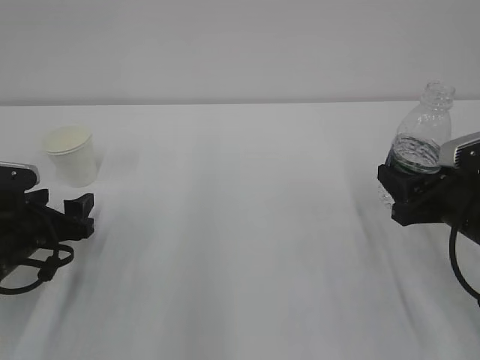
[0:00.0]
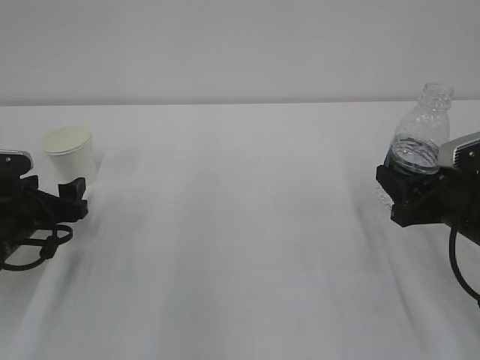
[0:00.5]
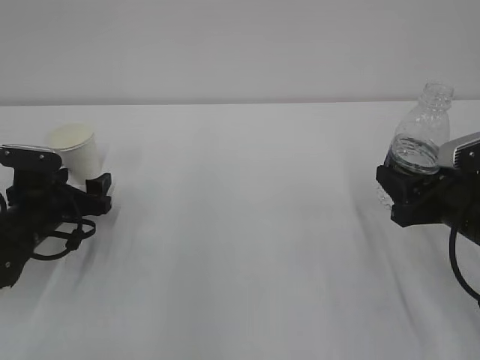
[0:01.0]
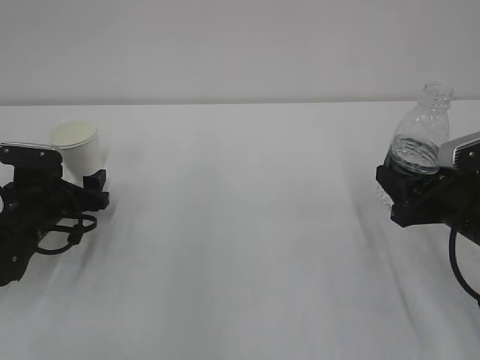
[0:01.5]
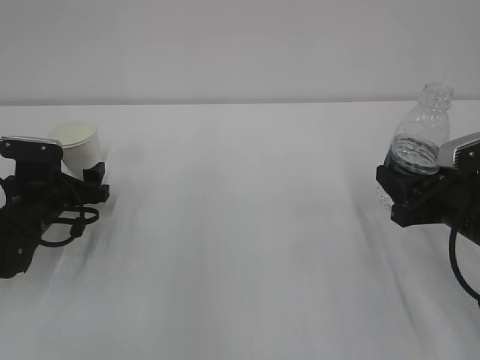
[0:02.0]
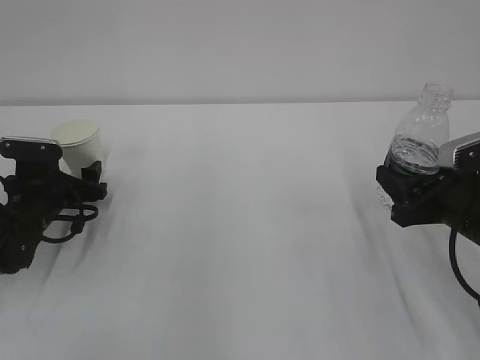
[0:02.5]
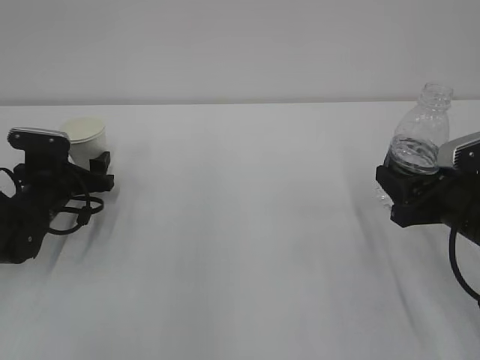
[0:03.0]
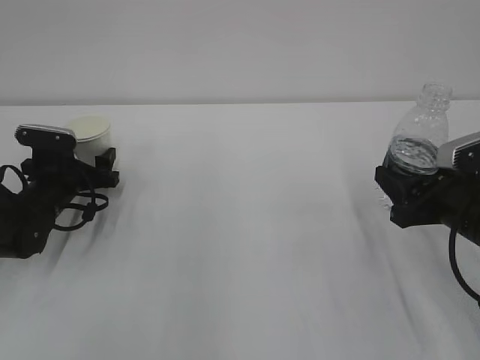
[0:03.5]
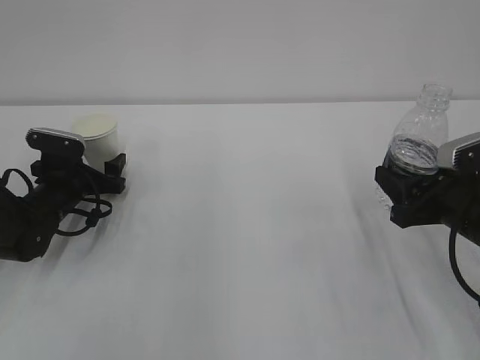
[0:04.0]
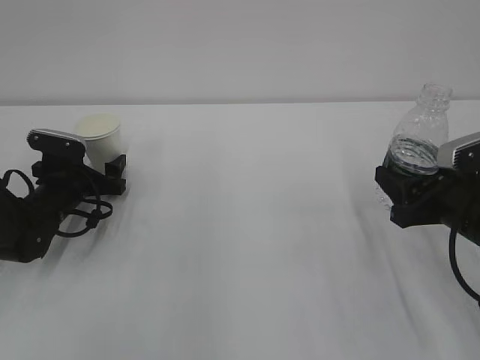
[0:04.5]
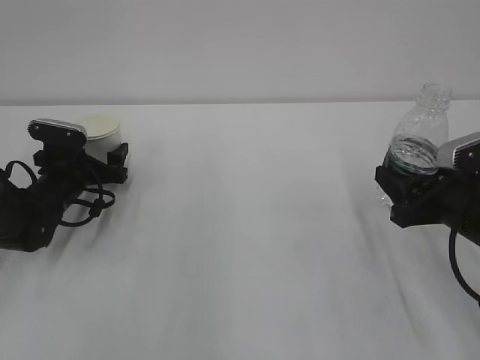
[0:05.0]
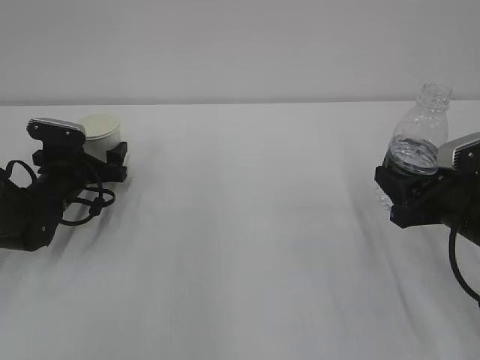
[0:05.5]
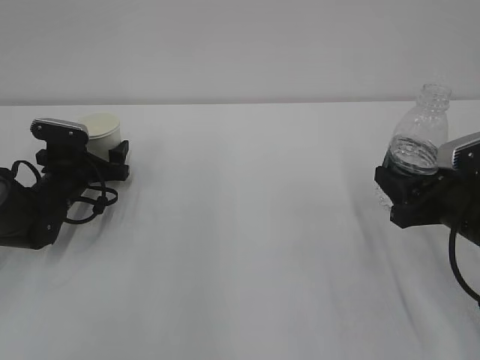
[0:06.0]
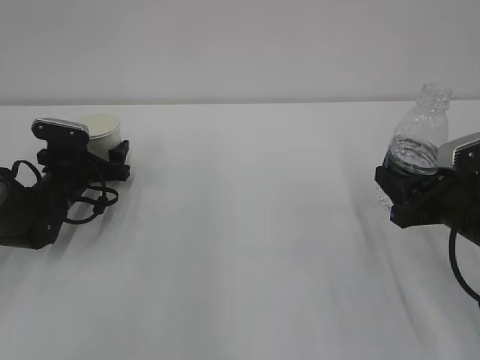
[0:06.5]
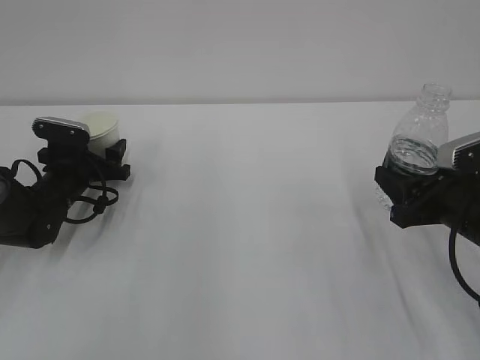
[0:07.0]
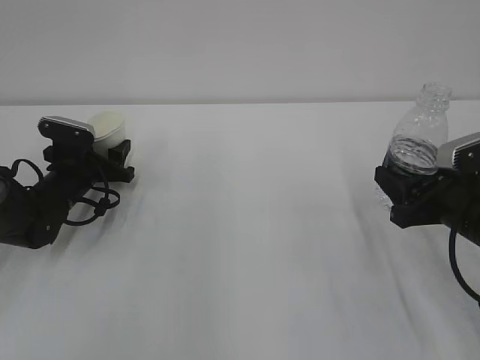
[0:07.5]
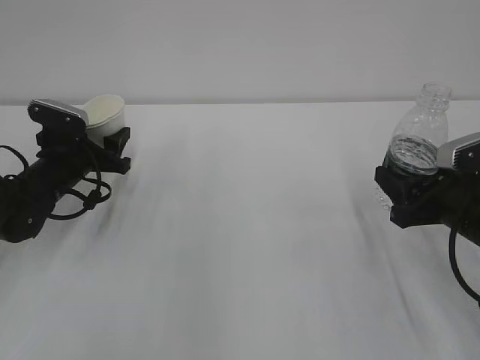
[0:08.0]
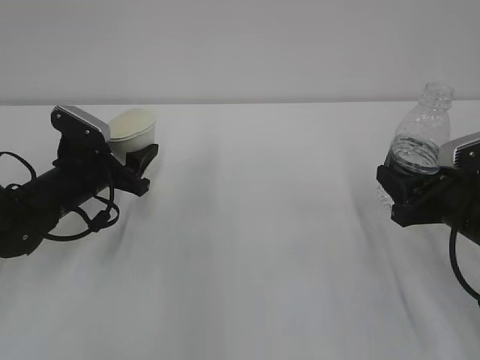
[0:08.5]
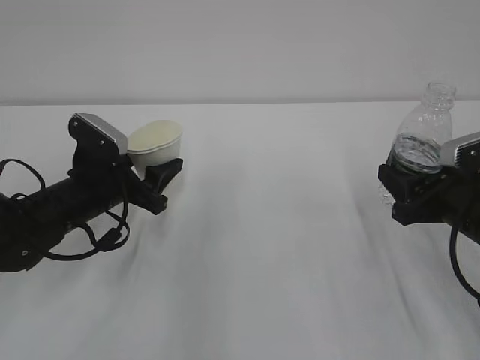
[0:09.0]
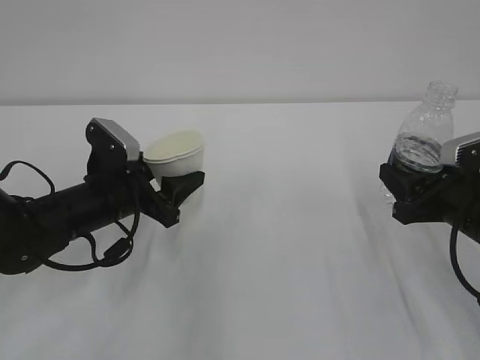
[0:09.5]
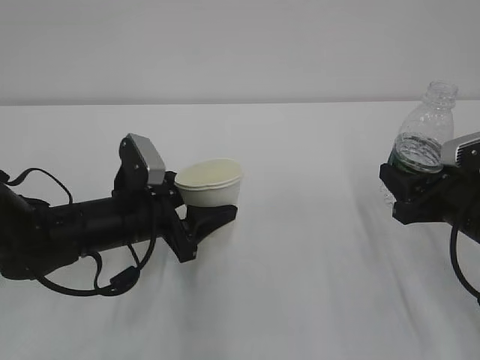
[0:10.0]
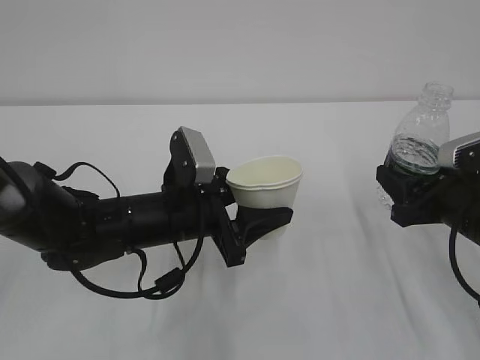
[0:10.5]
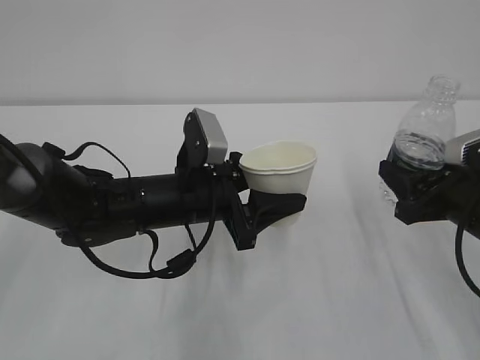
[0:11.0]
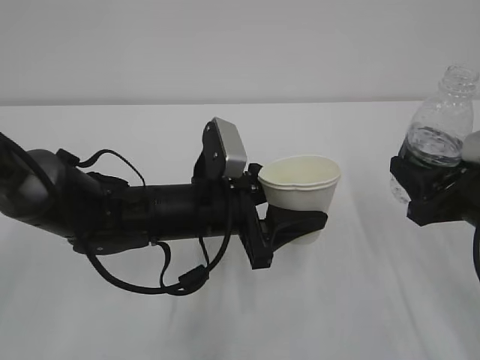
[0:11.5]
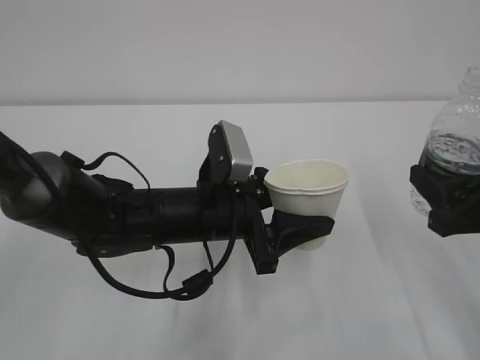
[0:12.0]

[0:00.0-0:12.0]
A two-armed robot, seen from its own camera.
0:00.0 to 0:02.0: The left gripper is displaced forward by some 10 cm.
0:02.0 to 0:04.0: The grippers move only a little.
0:04.0 to 0:06.0: The grippers stay close to where they were, moving slightly.
0:06.0 to 0:08.0: The left gripper closes up.
0:08.0 to 0:10.0: The left gripper is displaced to the right and backward by some 15 cm.
0:10.0 to 0:12.0: The right gripper travels backward by approximately 5 cm. The left gripper is displaced to the right by about 10 cm.

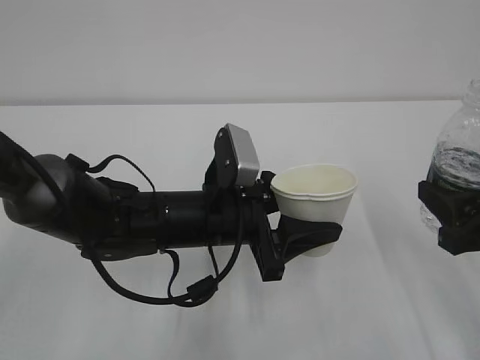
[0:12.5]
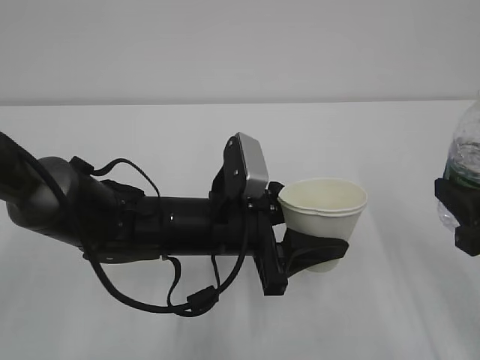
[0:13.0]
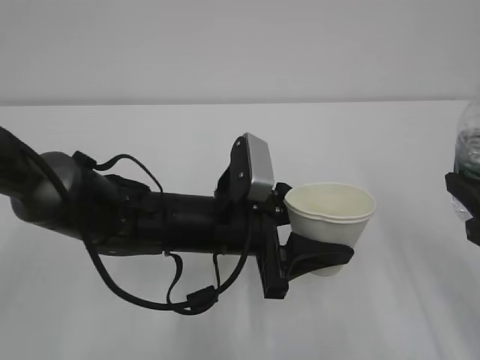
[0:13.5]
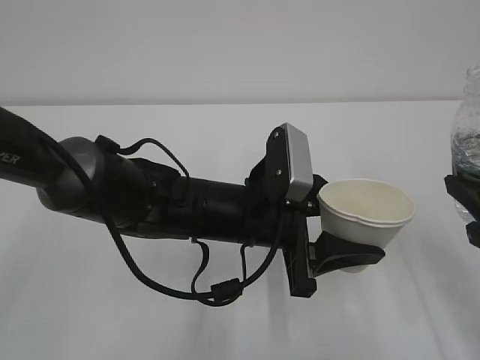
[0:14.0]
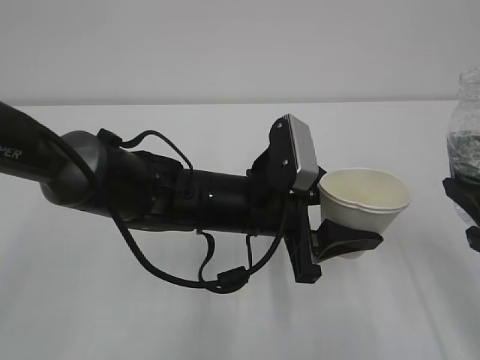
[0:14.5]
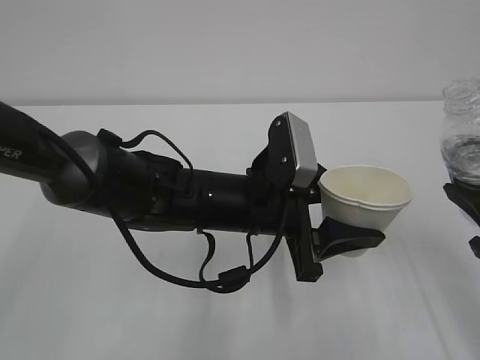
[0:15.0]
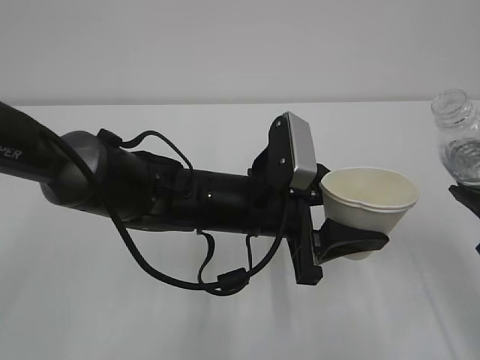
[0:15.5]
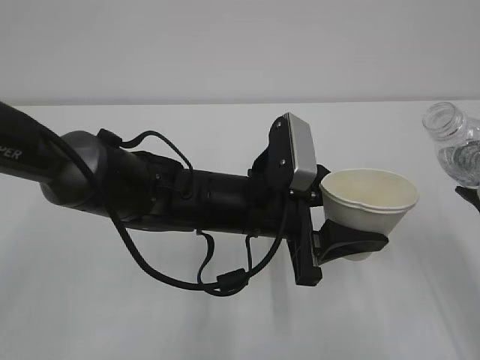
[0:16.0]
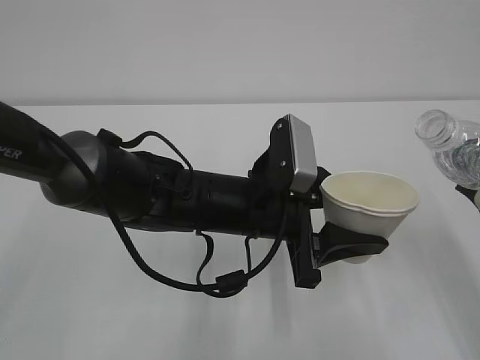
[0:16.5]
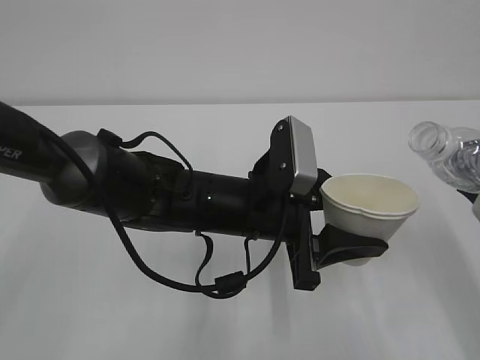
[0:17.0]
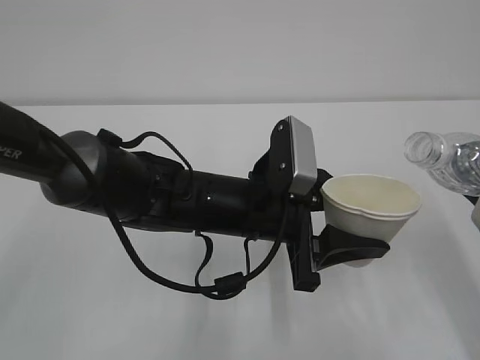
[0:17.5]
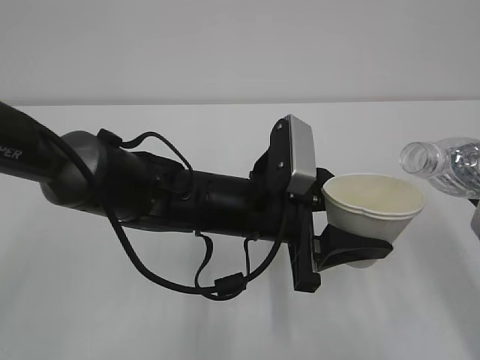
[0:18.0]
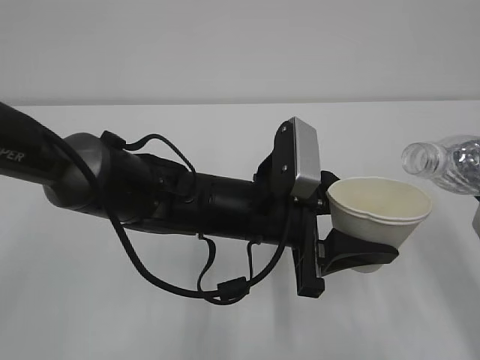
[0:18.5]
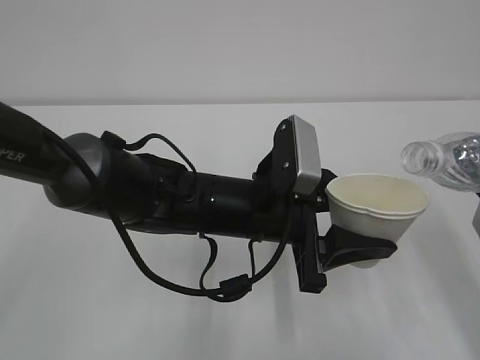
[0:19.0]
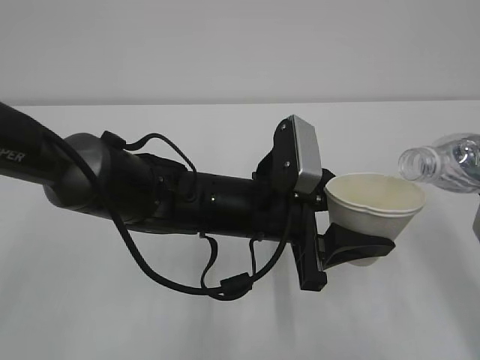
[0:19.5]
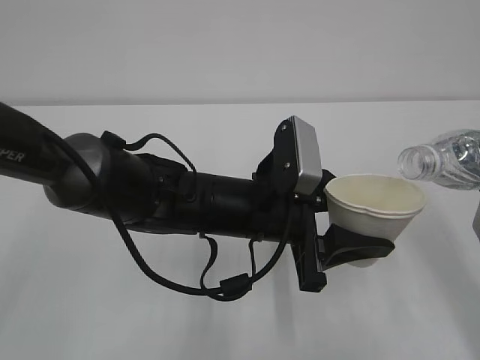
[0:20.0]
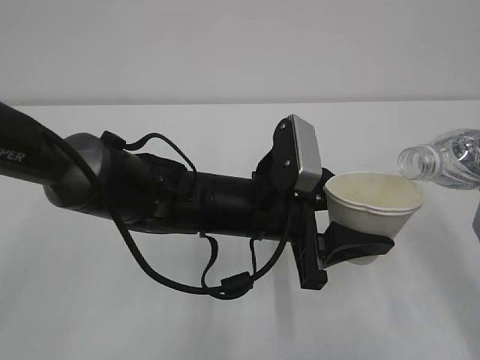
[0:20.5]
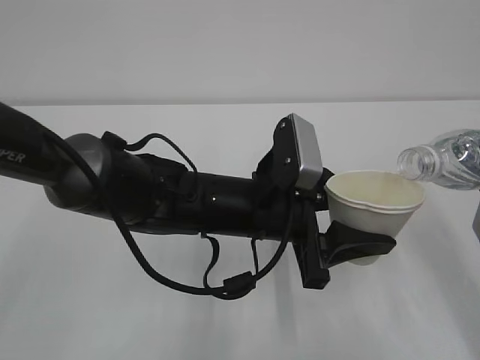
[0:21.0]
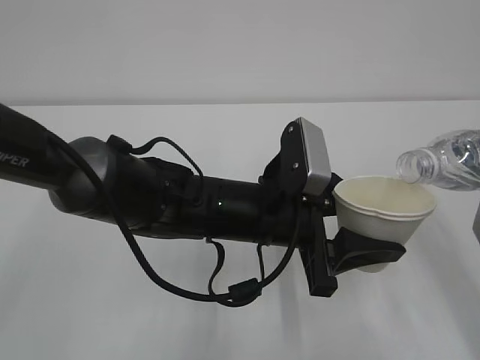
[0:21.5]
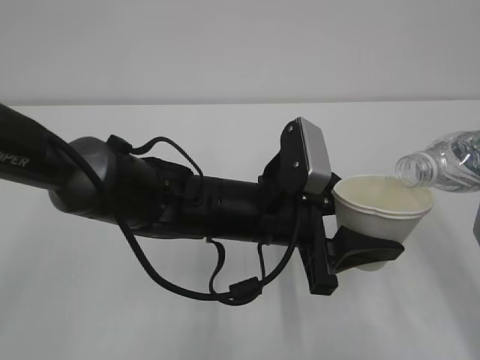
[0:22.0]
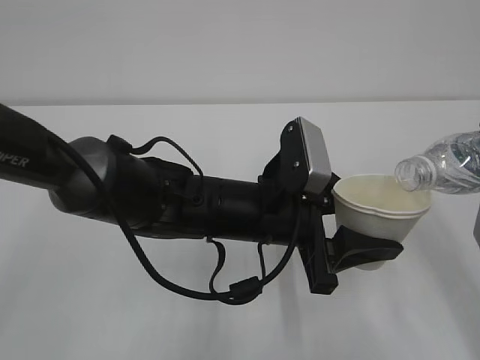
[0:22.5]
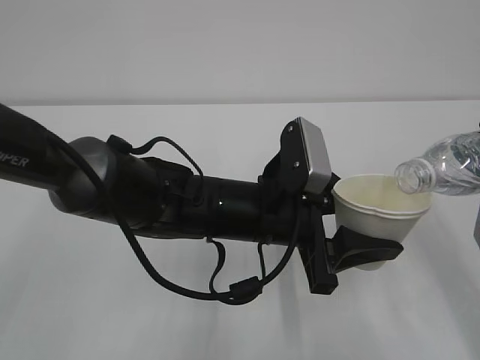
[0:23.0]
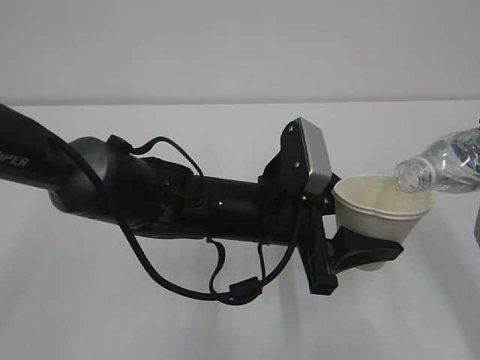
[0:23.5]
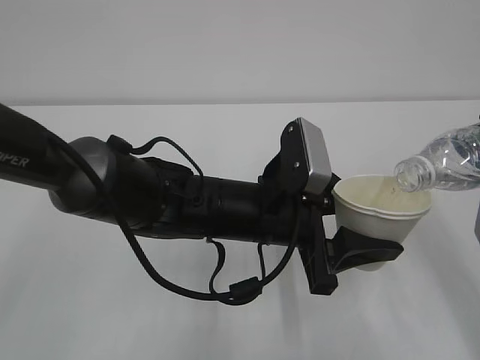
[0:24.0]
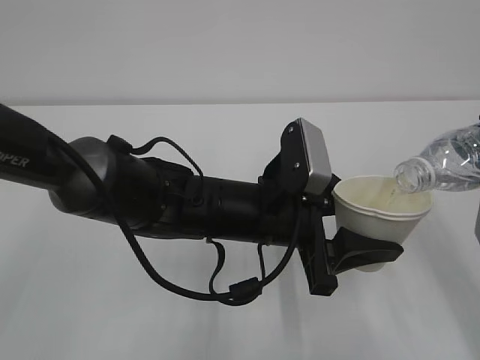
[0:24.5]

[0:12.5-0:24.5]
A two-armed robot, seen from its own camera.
0:16.5 to 0:18.5: The grippers make only small movements.
0:18.5 to 0:24.5: The grippers move only a little.

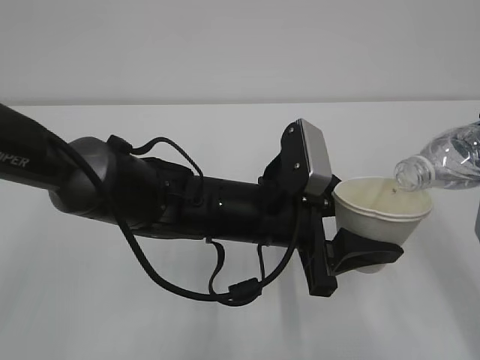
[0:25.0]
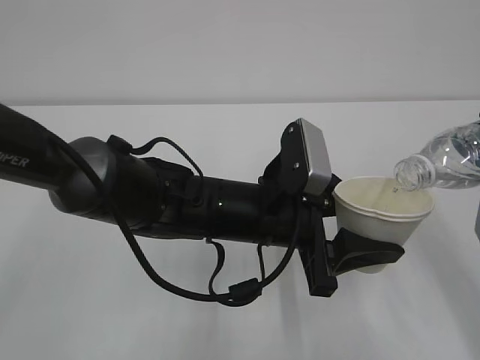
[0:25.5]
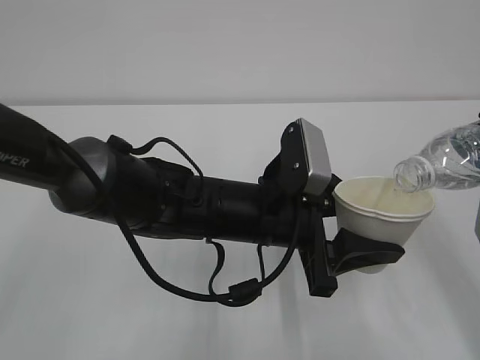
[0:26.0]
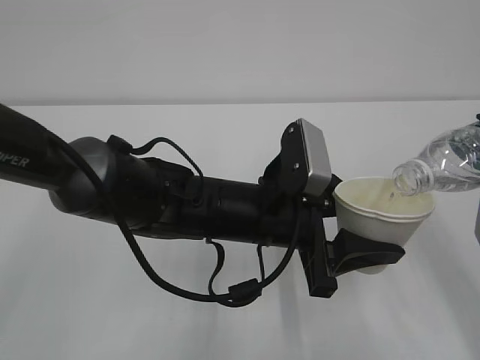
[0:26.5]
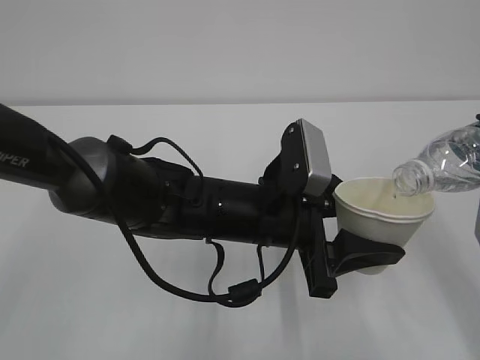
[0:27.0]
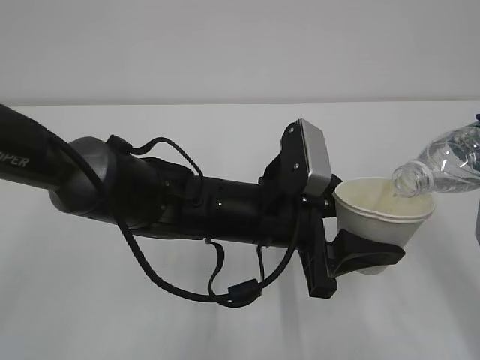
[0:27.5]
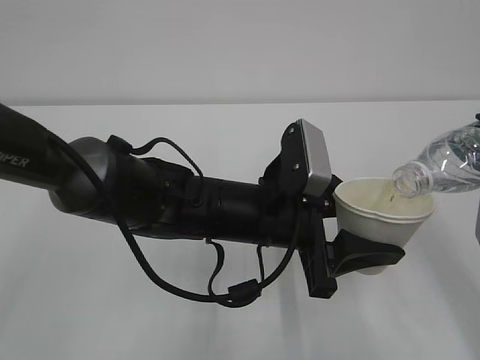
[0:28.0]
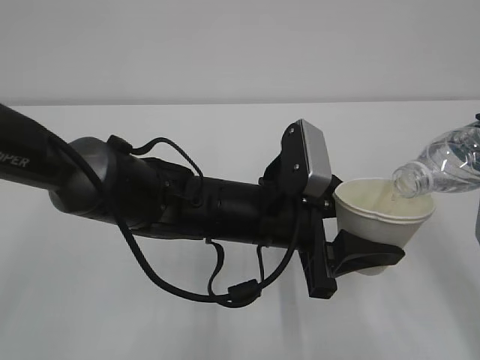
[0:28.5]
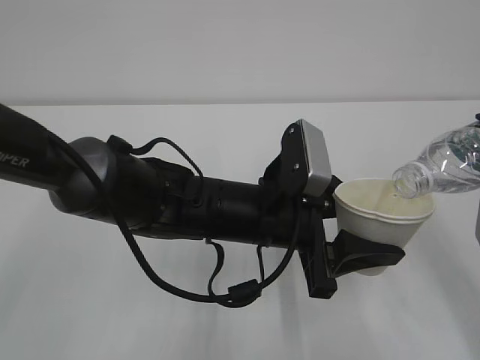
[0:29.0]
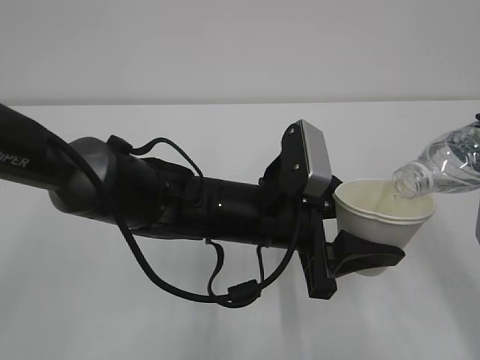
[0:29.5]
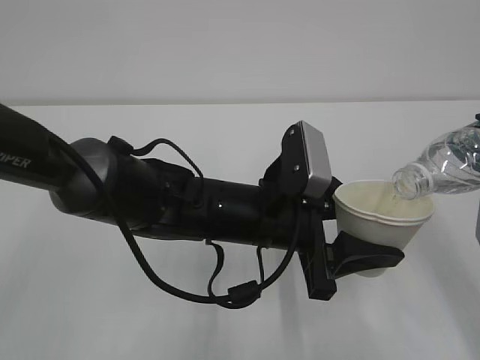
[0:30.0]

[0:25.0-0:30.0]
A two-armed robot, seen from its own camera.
0:25.0 to 0:30.0: Both grippers stay put.
